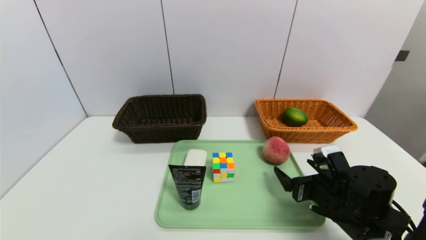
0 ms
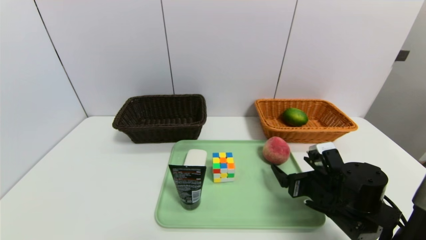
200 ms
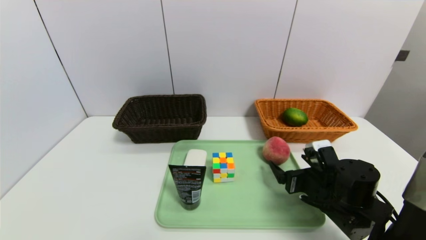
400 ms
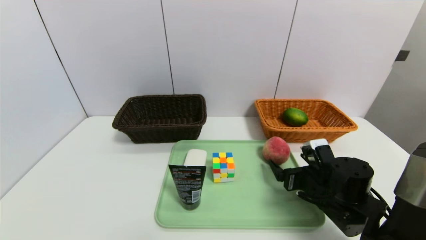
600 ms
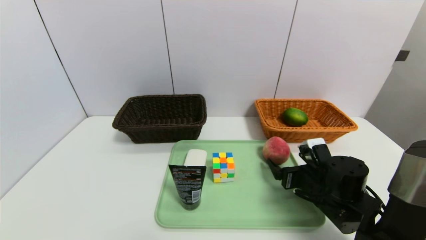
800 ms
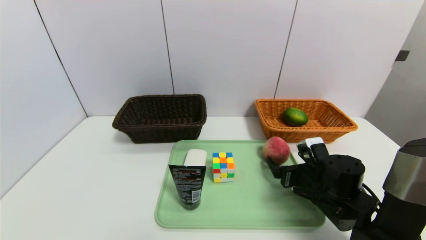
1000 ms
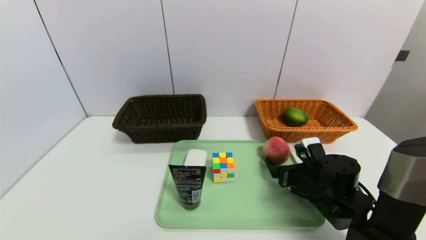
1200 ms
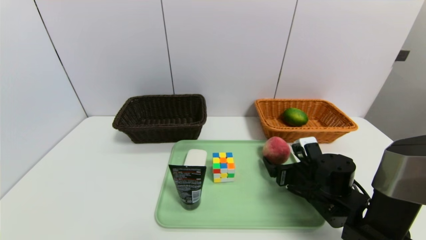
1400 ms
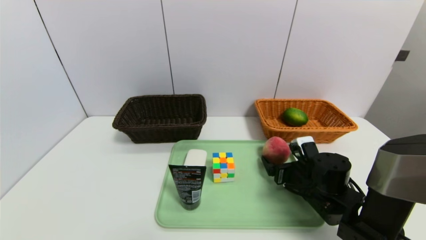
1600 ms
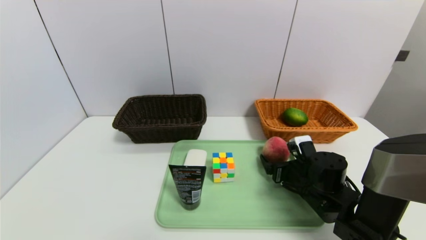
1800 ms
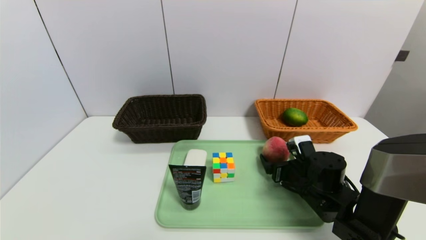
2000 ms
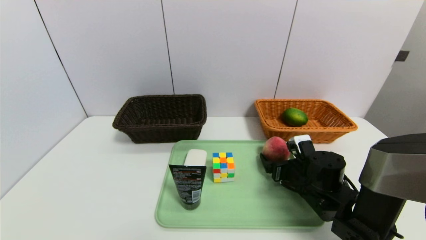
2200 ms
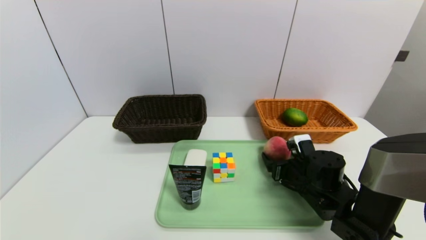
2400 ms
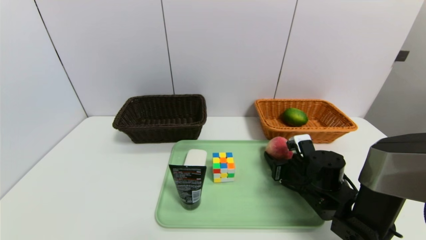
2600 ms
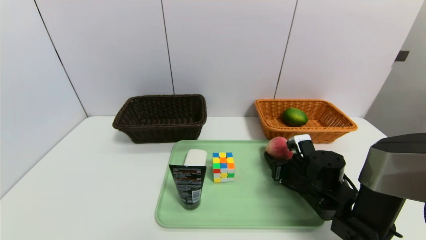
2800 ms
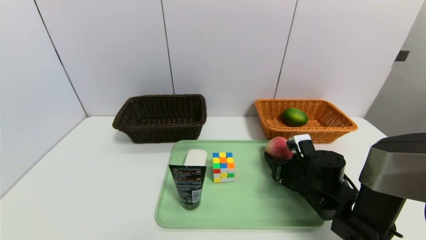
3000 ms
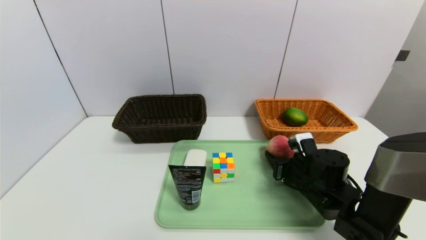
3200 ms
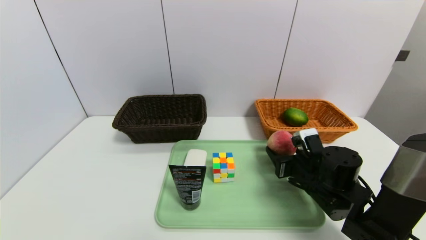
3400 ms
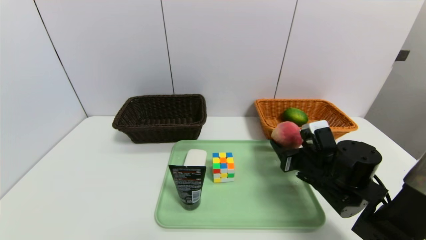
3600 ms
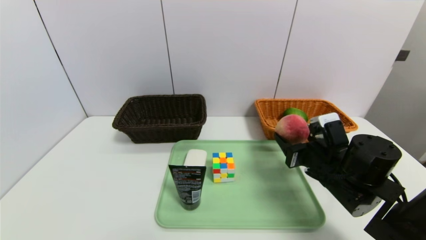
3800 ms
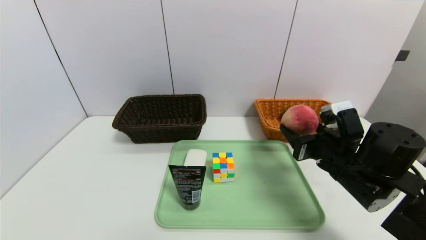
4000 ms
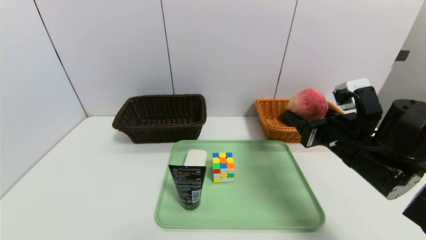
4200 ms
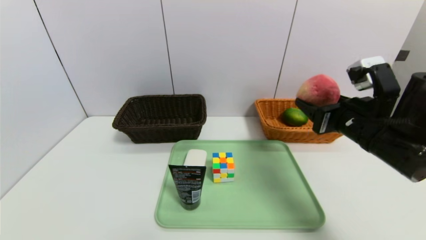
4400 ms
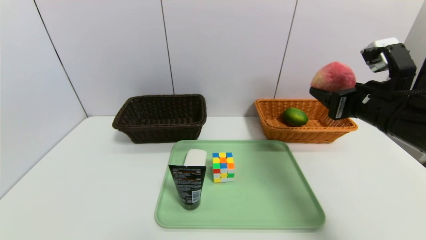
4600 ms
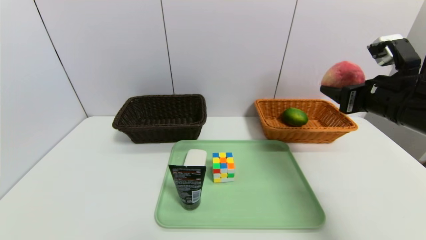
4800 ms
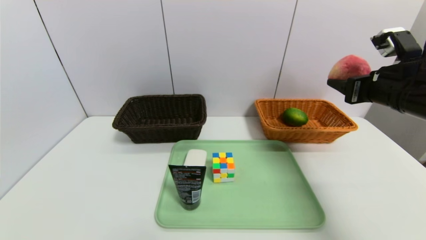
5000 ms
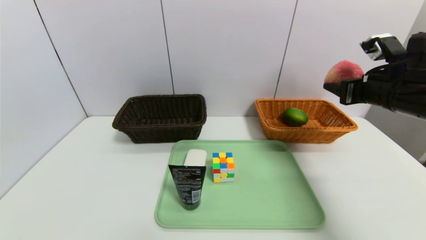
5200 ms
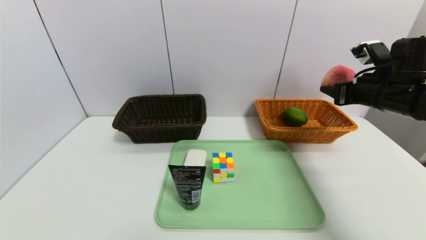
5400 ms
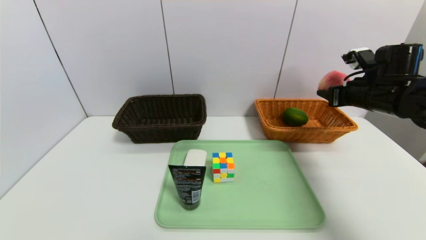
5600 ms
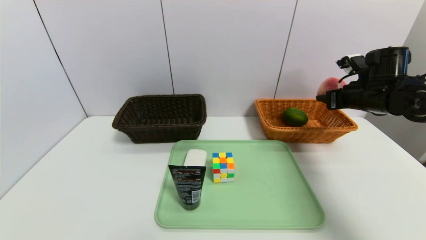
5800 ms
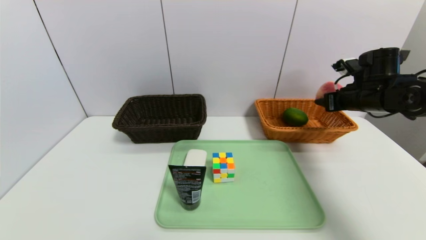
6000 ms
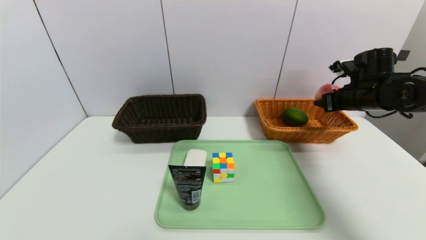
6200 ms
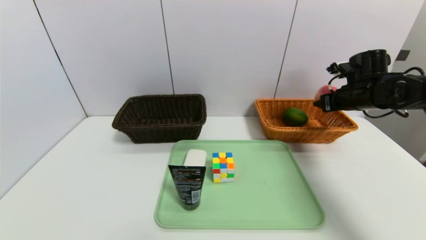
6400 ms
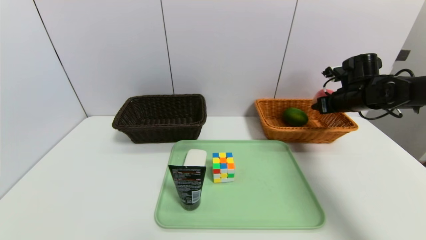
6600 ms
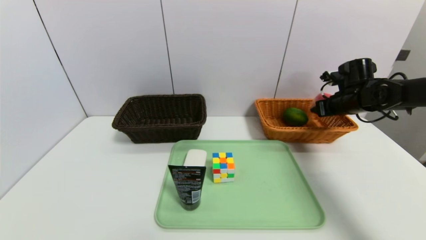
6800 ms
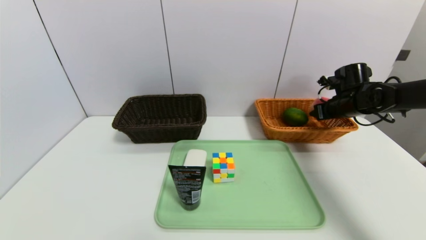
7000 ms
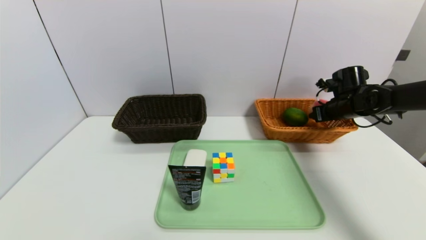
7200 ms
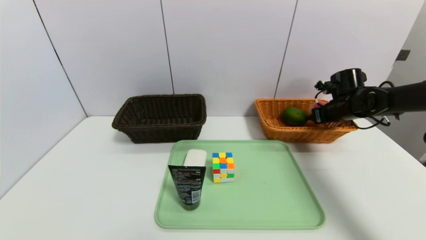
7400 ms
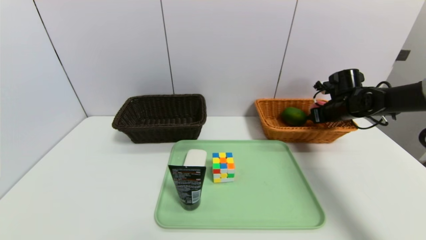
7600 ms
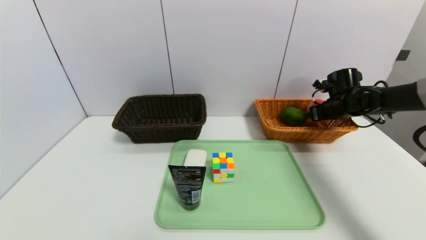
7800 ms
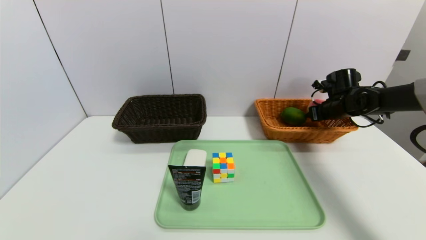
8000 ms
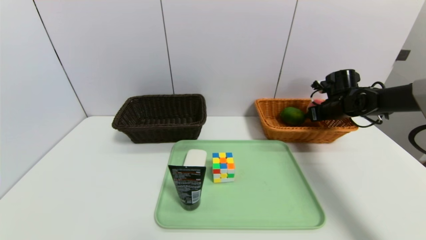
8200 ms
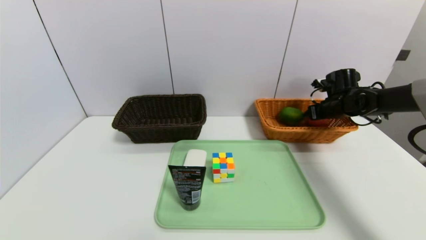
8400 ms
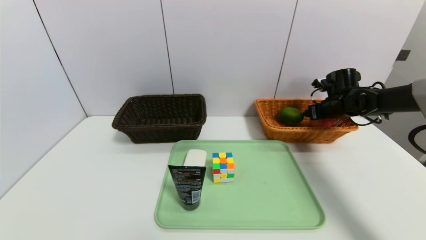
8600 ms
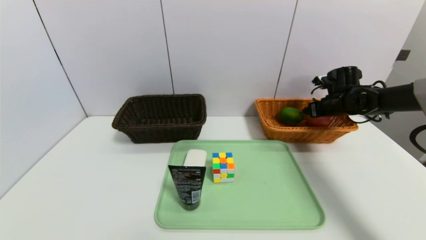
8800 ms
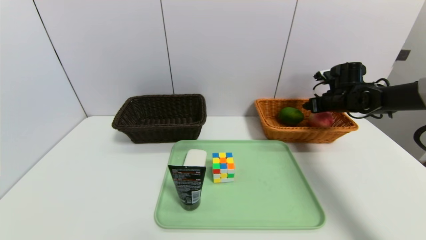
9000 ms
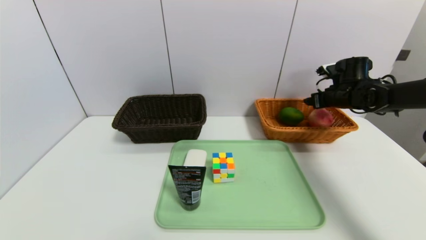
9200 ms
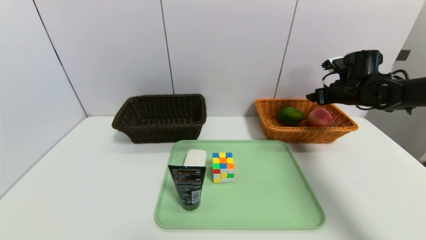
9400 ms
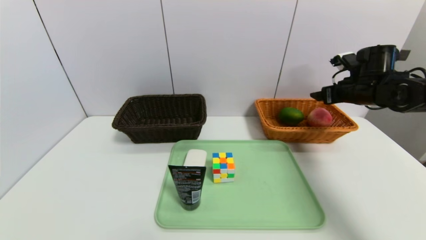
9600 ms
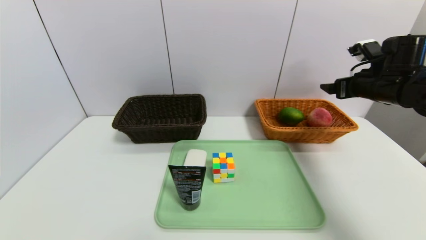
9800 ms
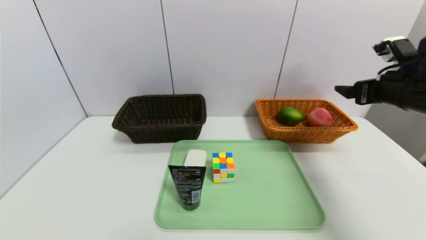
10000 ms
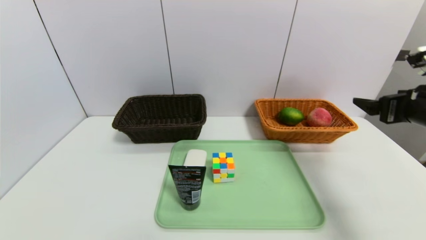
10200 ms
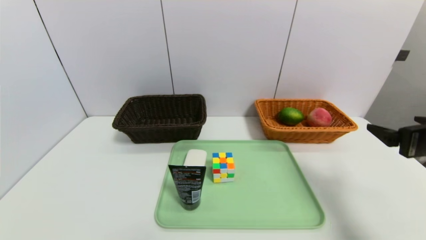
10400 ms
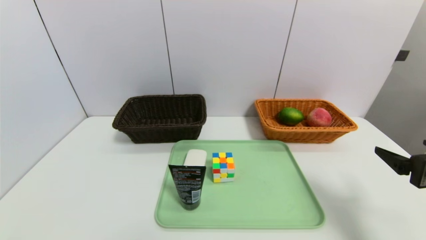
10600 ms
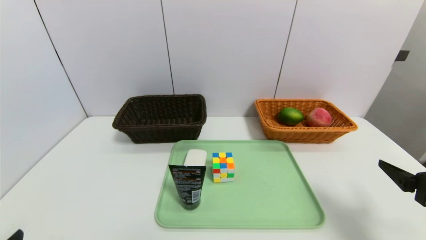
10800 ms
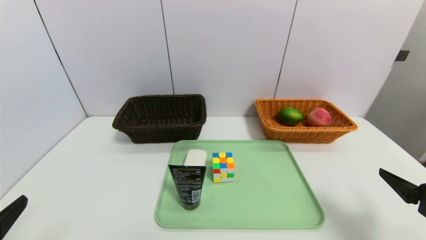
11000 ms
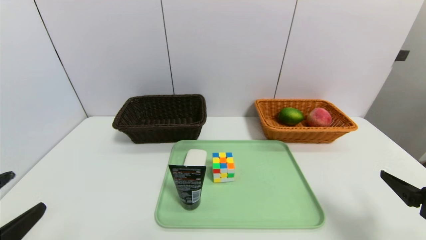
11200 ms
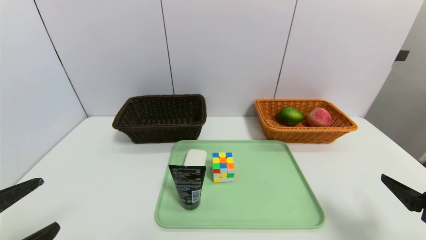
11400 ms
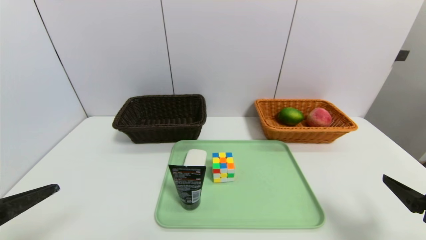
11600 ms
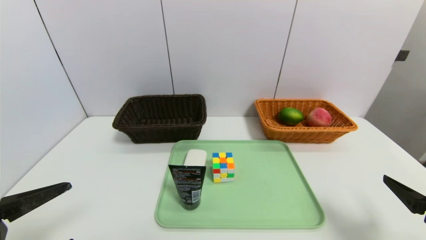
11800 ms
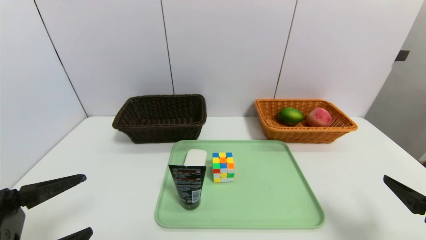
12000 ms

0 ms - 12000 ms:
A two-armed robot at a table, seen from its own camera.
Task of the whole recording: place the food in the right basket with the right gripper, and place the non food items in the left basket with the left gripper.
Step, 0 ms - 9400 ms: Grasp the peach and put it in the right basket.
0 ms - 1600 ms: The right gripper goes about 5 cm forward.
1600 ms - 3000 ms: The right gripper closes up.
3000 ms - 4400 ms: The right gripper shifts approximately 20 cm upward.
4400 ms - 6000 ms: The right gripper shifts some 15 cm forward and to the right.
6000 ms - 7600 ms: The right gripper is displaced forward and downward by roughly 10 cm.
7600 ms - 9000 ms: The right gripper opens up.
9000 ms - 10400 ms: The right gripper heads backward, covering approximately 30 cm.
10400 ms - 12000 ms: The left gripper moves forward and upward, approximately 15 cm. The right gripper heads backward, covering some 5 cm.

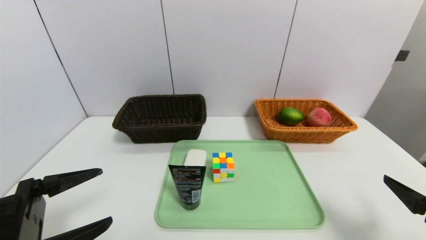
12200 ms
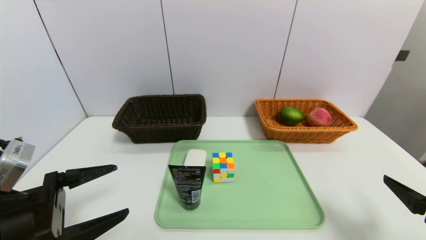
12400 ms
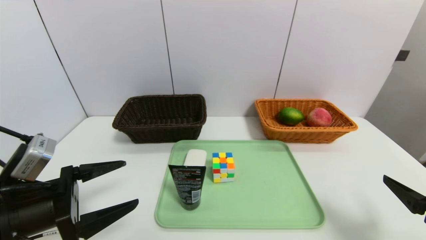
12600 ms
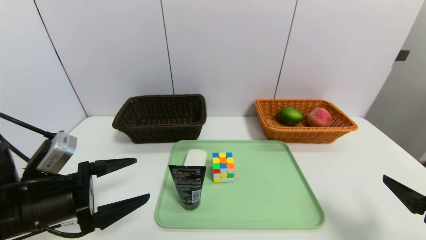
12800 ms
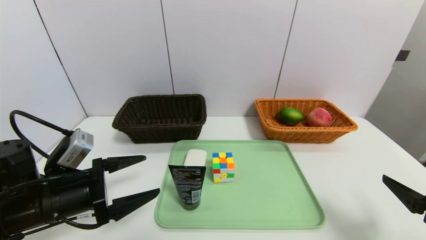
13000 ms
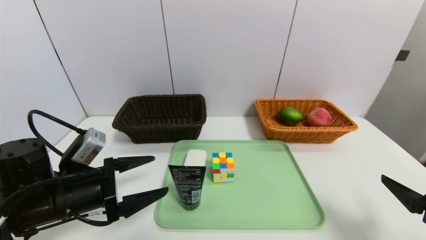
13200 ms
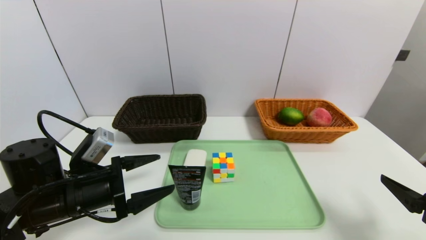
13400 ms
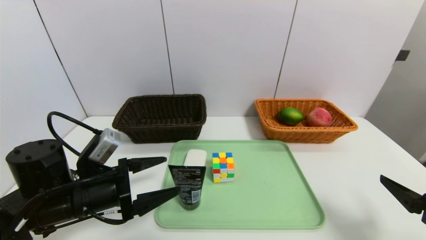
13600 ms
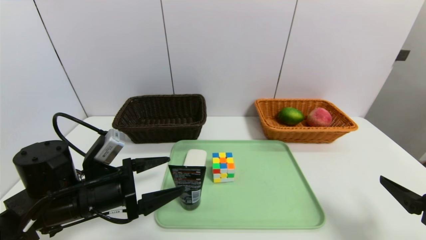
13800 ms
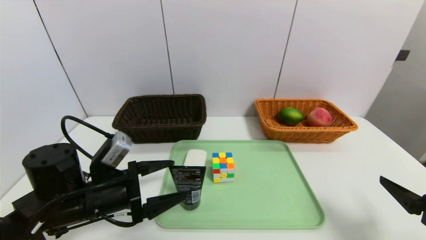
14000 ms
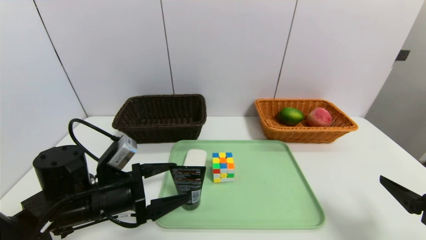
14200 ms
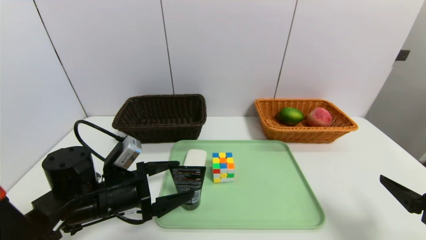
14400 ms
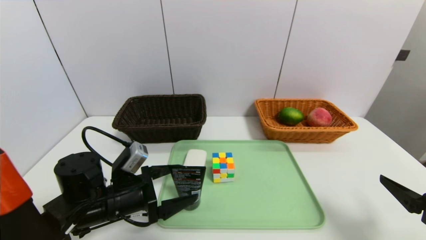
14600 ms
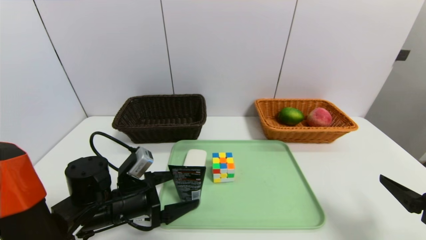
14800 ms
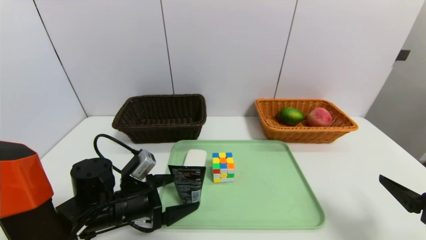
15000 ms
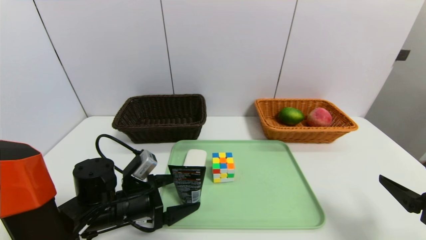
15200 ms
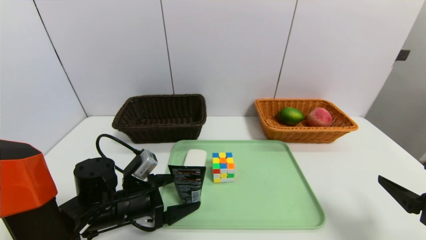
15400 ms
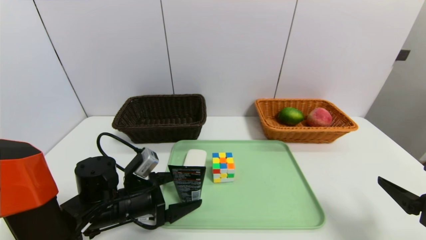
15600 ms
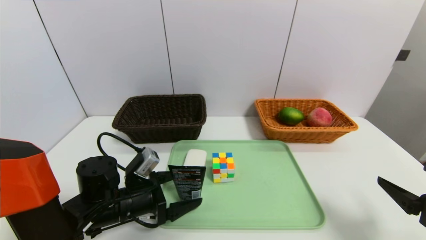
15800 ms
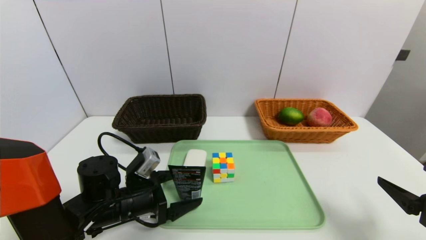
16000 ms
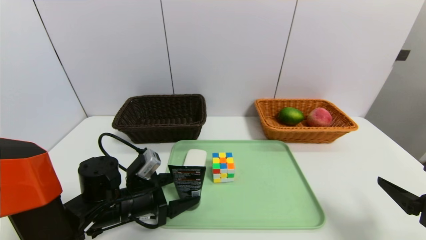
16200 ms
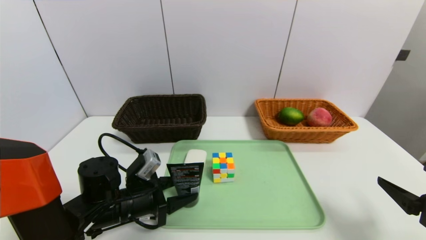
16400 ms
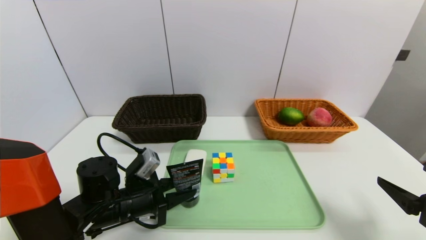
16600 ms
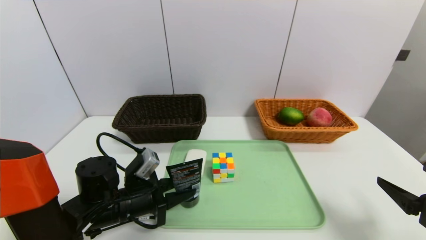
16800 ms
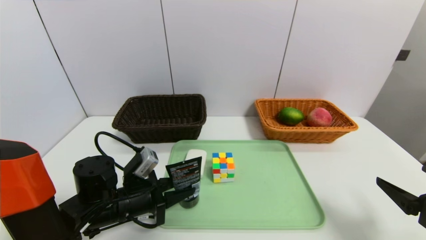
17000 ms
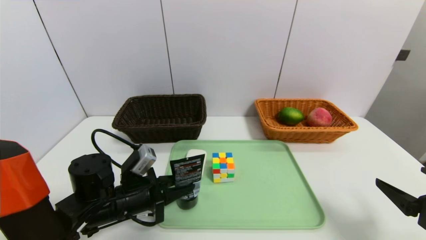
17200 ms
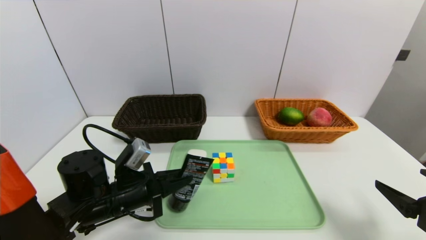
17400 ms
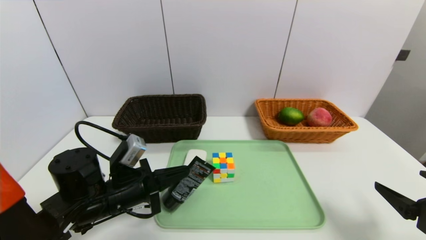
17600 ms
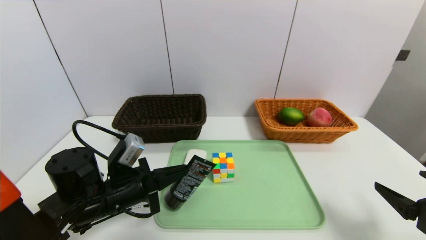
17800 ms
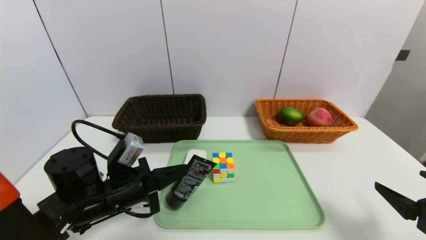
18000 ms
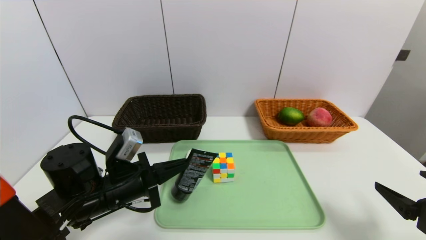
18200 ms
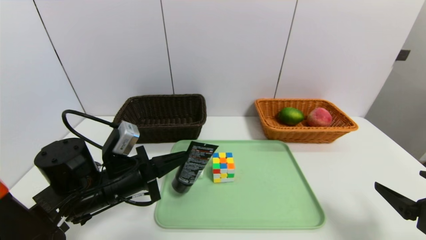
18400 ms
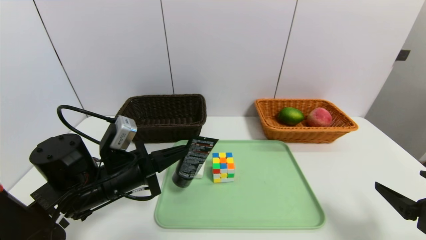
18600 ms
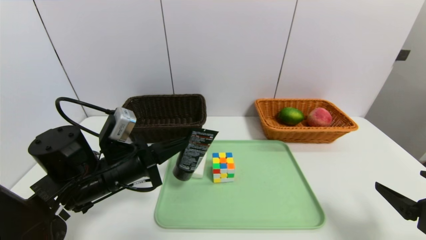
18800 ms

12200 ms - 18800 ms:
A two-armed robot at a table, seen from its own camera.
Task of the whole recording: place the food in the right basket with the right gripper, and place the non food items in the left basket with the left gripper.
12200 ms - 13800 ms: The left gripper goes about 10 cm forward and to the right.
13800 ms - 15400 ms: The left gripper travels downward by about 5 cm.
15400 ms - 17200 ms: The left gripper closes.
17200 ms - 18800 ms: The left gripper is displaced upward by roughly 5 cm.
